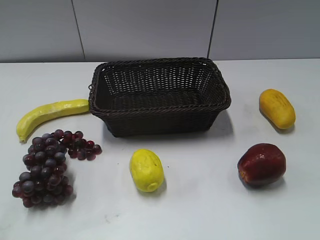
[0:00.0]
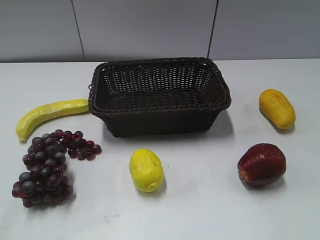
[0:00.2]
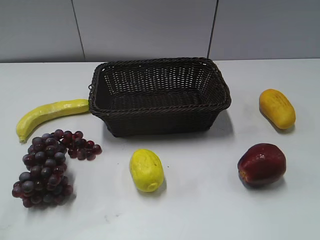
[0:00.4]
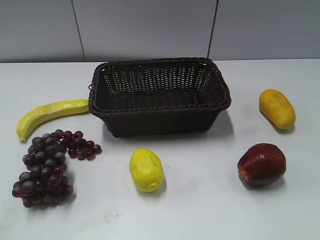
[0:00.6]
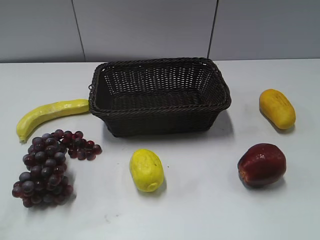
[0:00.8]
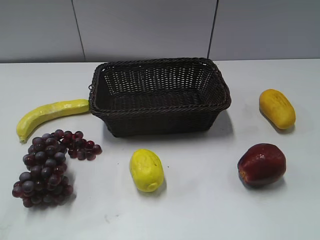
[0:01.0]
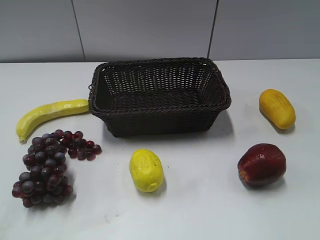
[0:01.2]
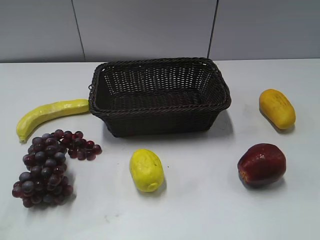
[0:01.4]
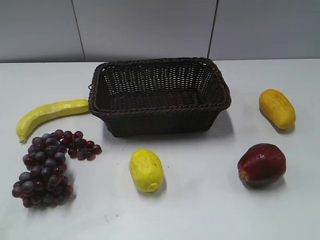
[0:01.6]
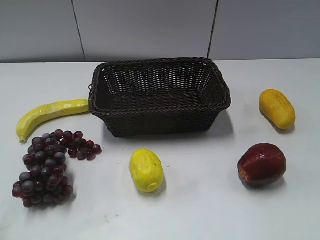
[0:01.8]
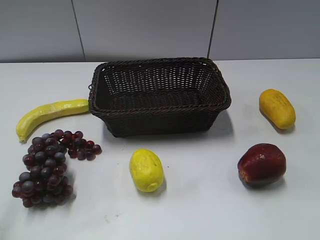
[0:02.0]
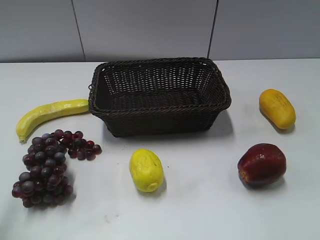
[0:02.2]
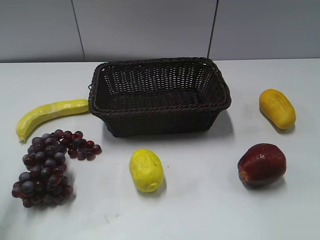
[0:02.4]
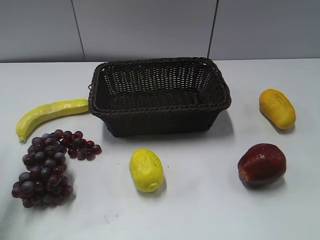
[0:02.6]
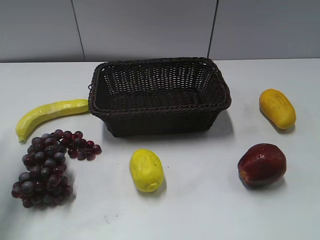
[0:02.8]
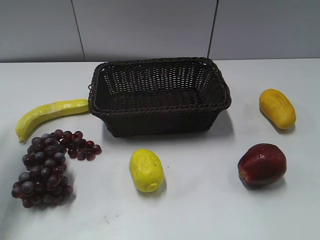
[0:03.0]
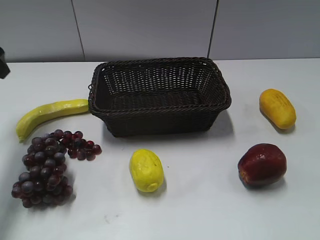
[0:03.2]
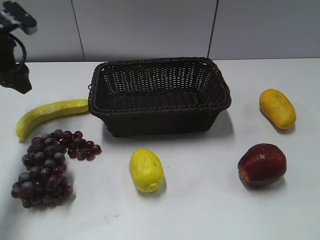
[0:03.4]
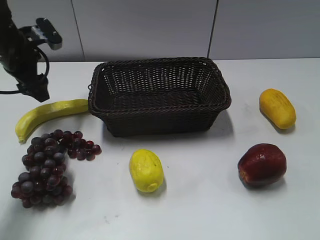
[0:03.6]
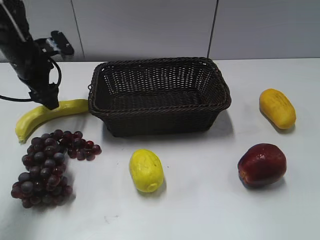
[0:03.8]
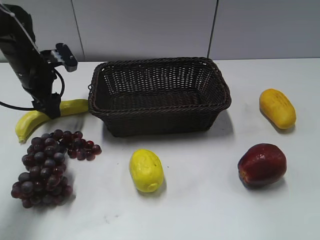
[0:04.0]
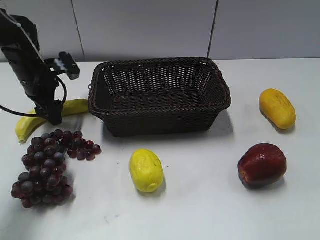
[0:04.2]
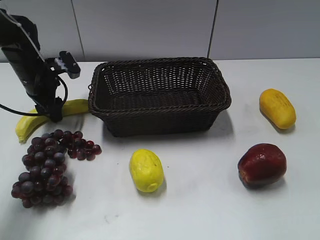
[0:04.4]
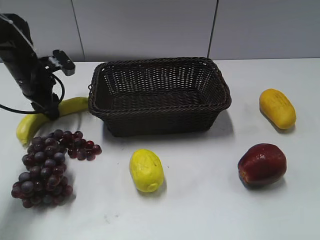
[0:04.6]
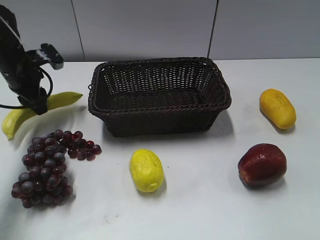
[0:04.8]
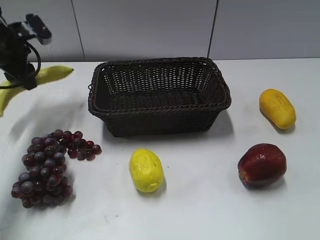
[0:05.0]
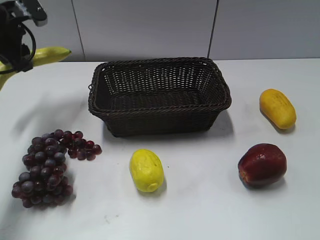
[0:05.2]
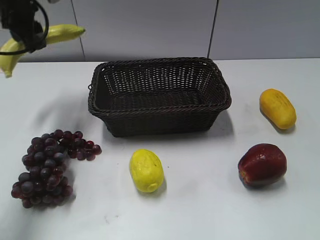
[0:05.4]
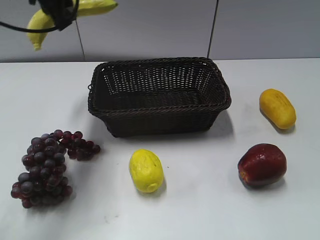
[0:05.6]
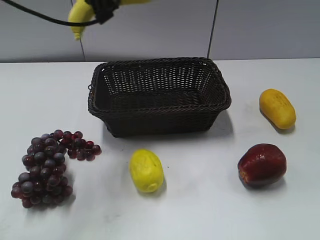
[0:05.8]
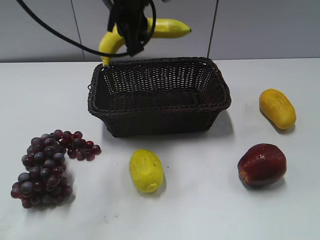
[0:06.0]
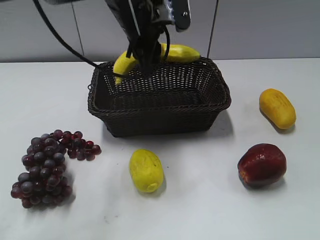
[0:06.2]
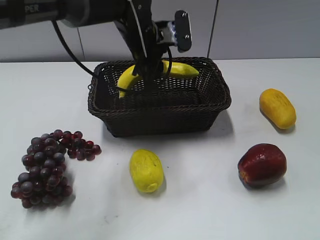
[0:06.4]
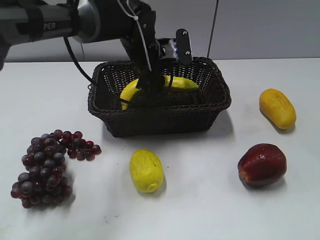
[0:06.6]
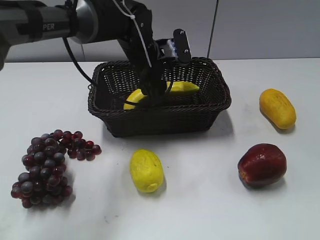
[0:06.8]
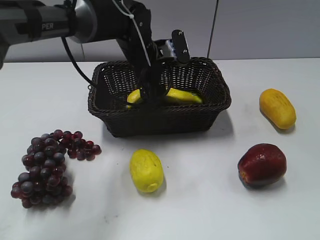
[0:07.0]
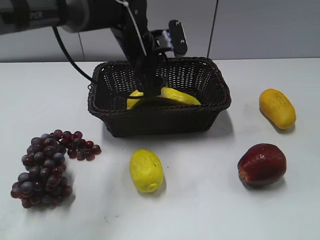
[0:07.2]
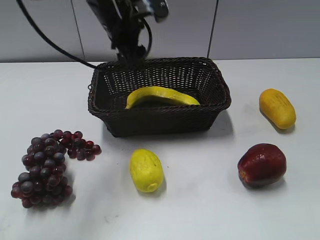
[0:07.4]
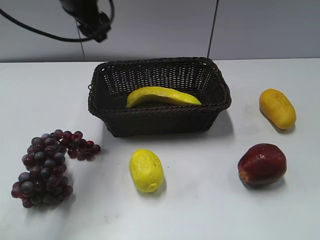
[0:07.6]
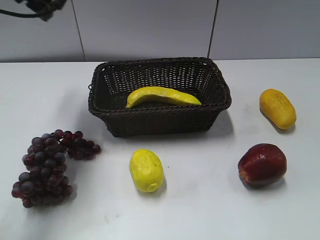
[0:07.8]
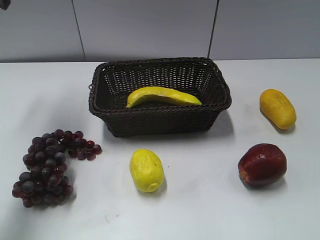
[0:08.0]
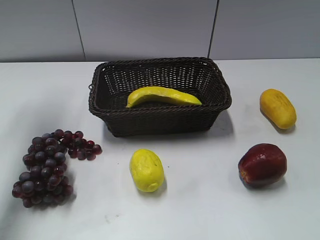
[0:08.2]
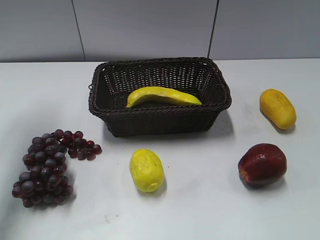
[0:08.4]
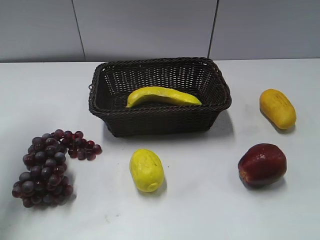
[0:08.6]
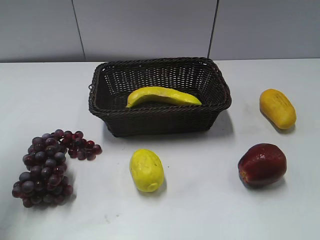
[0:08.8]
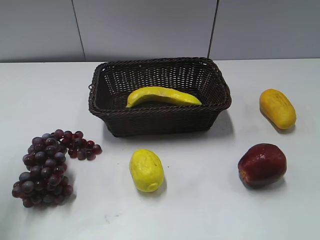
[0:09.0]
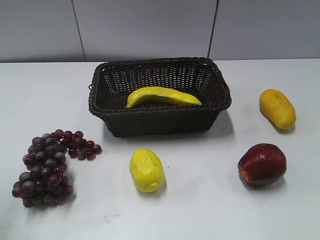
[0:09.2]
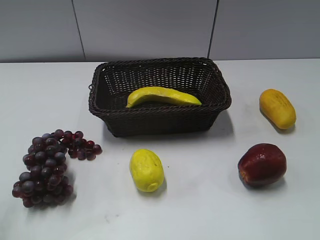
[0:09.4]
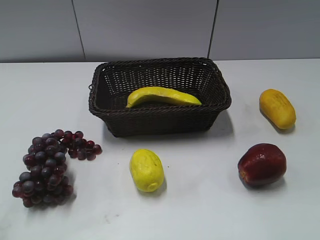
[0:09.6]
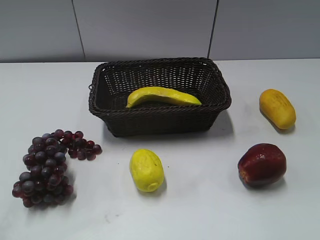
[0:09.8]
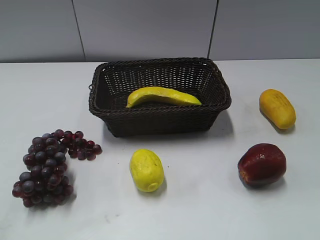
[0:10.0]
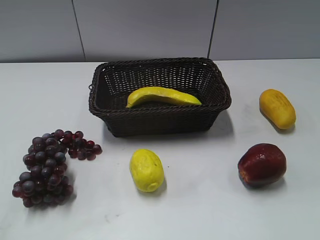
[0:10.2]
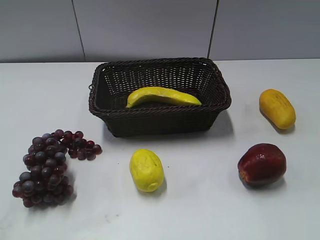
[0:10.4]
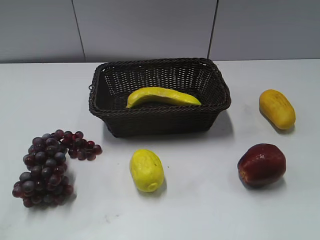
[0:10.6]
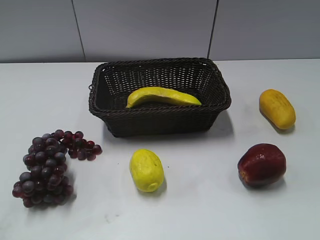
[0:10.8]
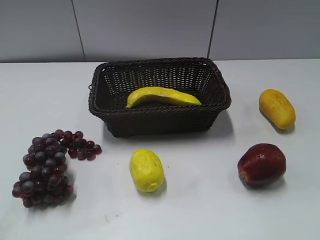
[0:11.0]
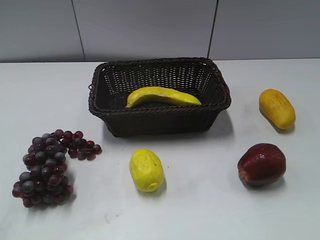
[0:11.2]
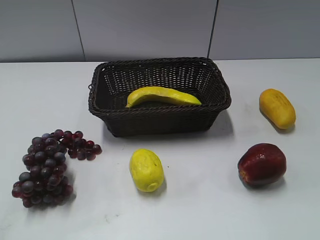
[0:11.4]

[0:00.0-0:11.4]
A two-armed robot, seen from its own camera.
Step, 0:03.2 to 0:04.6: Grasp the banana with left gripper.
Step, 0:04.8 to 0:07.0: Place the banana in the basket with left gripper.
0:01.4 to 0:02.8: The left gripper heads forward, covering about 25 cm.
0:02.8 to 0:04.2: The left gripper is displaced downward and forward by about 25 cm.
0:04.2 to 0:05.6: The left gripper moves upward and to the right, approximately 20 cm, and closes.
0:05.6 to 0:07.2: The left gripper shifts roughly 20 cm downward and to the right, and opens up.
0:07.2 to 0:08.6: The left gripper travels to the left and upward by some 35 cm.
0:08.6 to 0:10.0: The left gripper is displaced backward by approximately 30 cm.

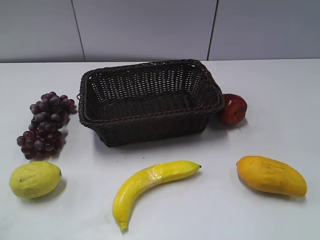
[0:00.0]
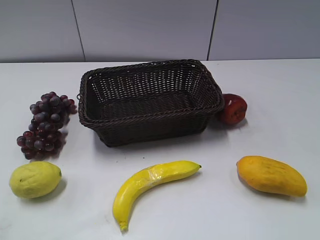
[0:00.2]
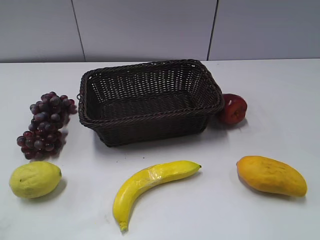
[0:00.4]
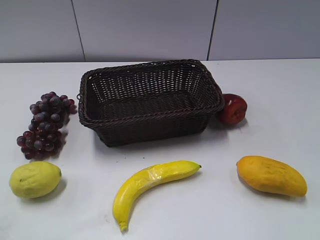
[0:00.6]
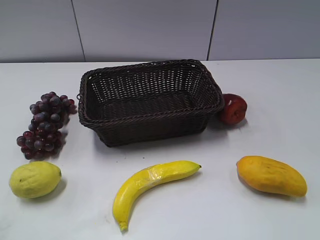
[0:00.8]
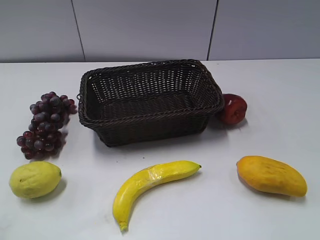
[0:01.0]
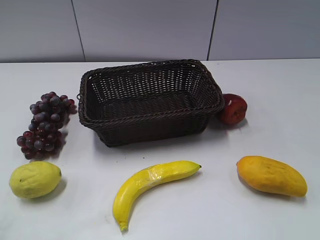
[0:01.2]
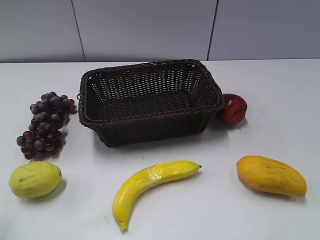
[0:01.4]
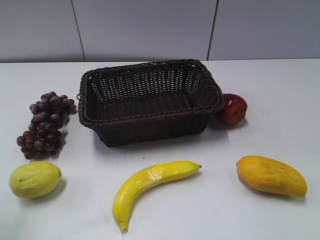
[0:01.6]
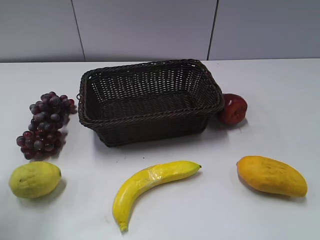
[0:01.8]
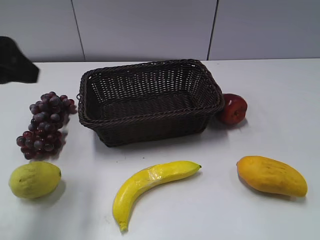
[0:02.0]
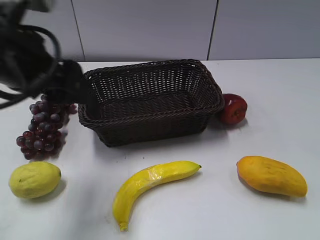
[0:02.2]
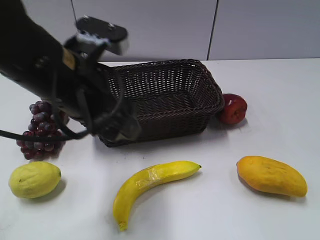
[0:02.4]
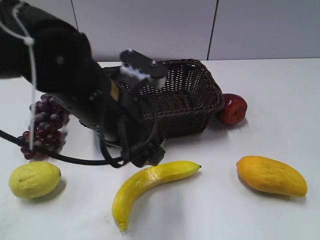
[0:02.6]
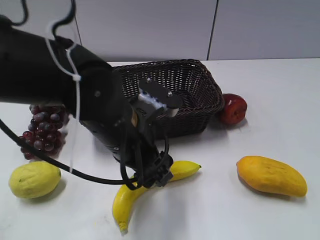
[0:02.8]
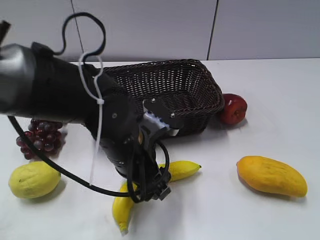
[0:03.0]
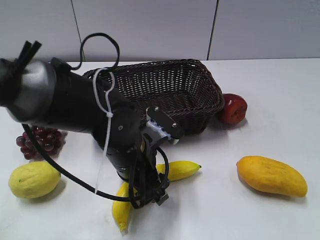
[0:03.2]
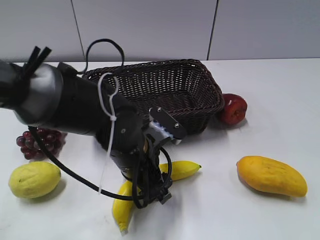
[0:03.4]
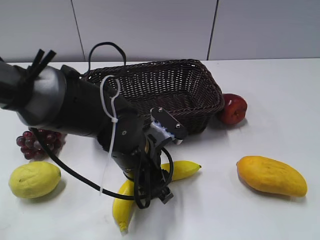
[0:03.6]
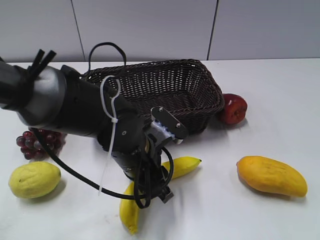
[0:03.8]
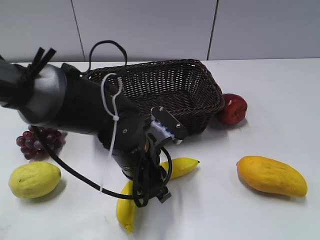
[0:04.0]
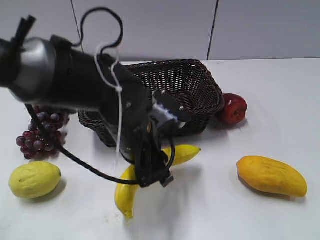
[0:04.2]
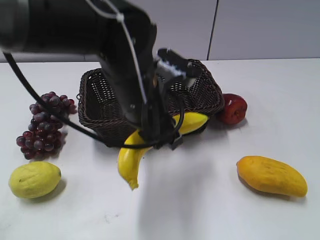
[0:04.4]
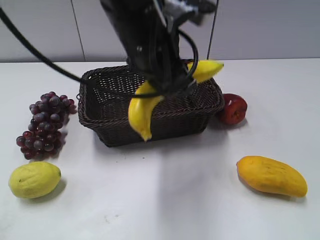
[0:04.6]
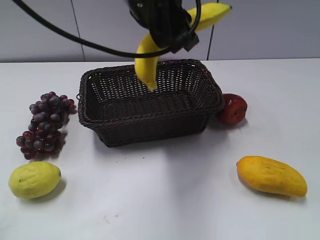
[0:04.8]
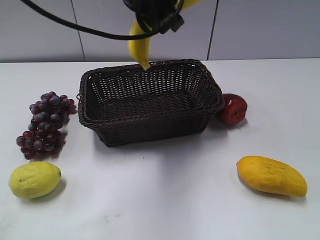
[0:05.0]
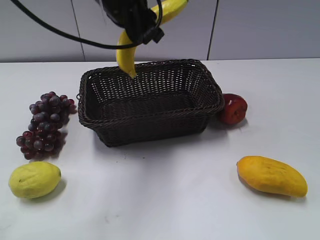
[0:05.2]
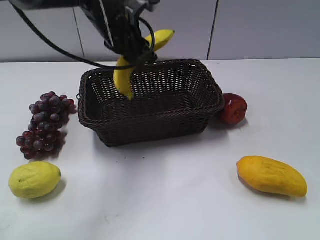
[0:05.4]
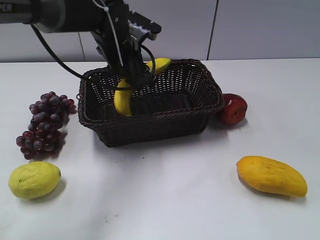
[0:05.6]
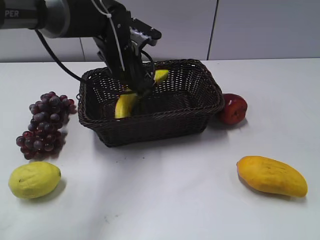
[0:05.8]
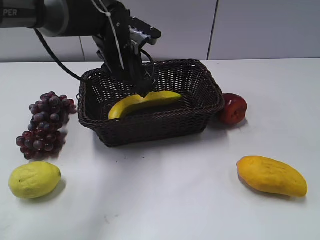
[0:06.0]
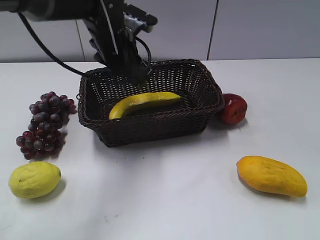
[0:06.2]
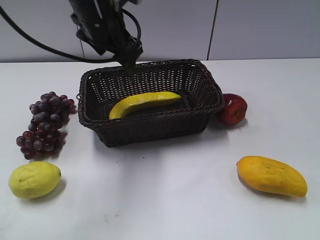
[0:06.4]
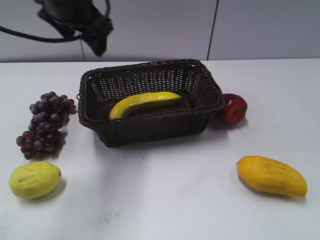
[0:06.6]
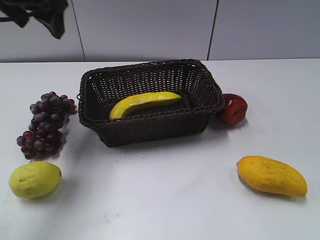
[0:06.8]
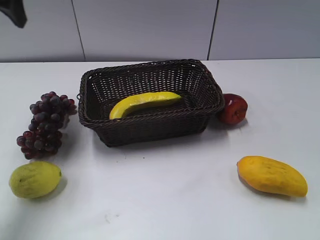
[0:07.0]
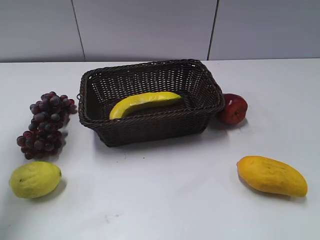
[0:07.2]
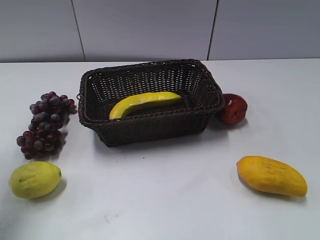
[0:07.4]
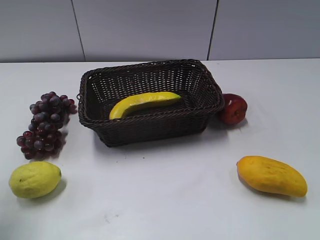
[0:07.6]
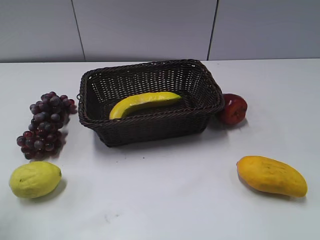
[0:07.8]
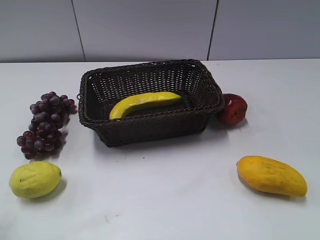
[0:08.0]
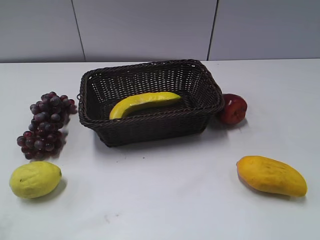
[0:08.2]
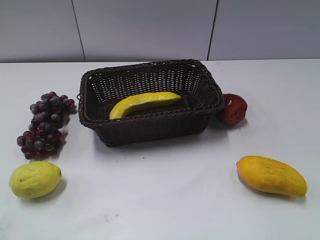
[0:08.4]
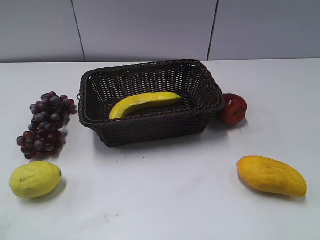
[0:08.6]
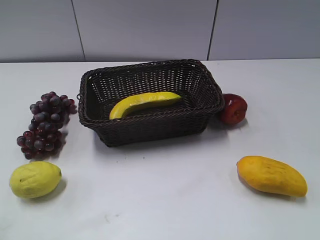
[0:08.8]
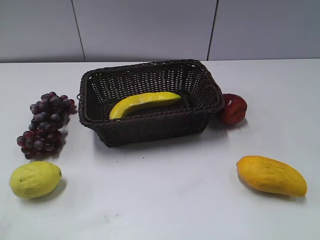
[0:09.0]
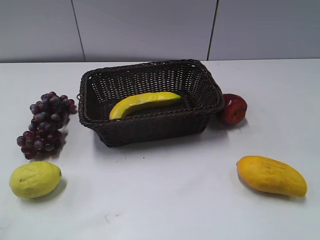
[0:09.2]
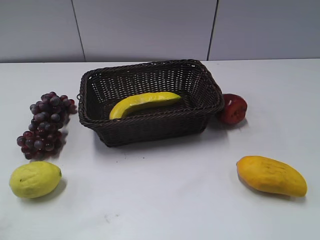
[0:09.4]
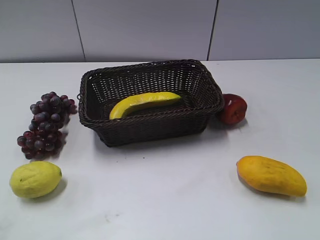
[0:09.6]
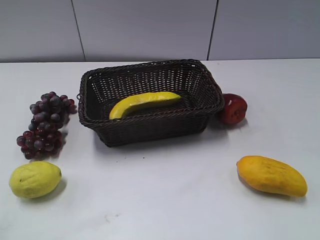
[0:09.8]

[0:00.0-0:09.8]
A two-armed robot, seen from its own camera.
Step, 0:02.0 to 0:04.0: Grasp the banana with left gripper.
Step, 0:04.2 to 0:05.8: Place the banana in the basket with left gripper.
0:01.4 to 0:02.8: The left gripper is displaced to the right, forward and downward by about 35 cm.
0:02.8 to 0:04.2: The left gripper closes its fingers.
0:04.2 to 0:05.6: The left gripper moves forward, some 15 cm, and reaches approximately 20 cm upward, then returns.
0:05.6 to 0:07.0: The left gripper shifts approximately 25 cm to the left and upward, and opens.
0:07.0 to 0:08.4: The left gripper moves backward, approximately 30 cm.

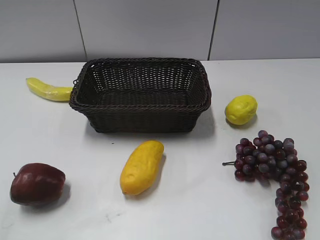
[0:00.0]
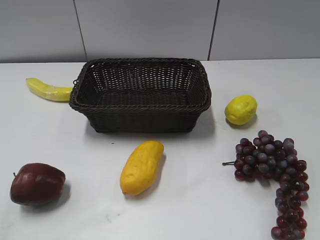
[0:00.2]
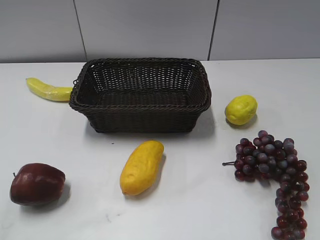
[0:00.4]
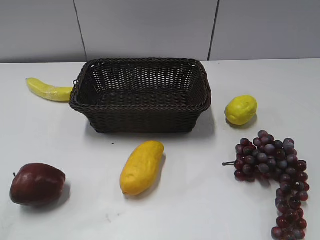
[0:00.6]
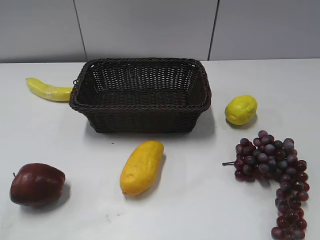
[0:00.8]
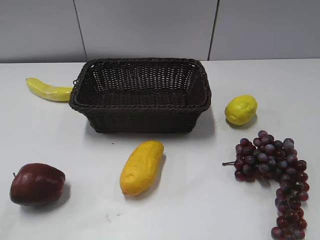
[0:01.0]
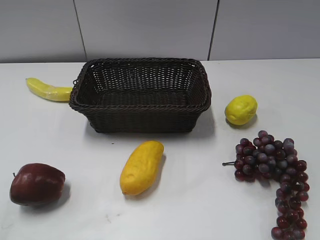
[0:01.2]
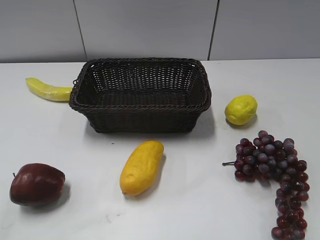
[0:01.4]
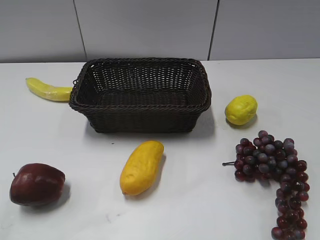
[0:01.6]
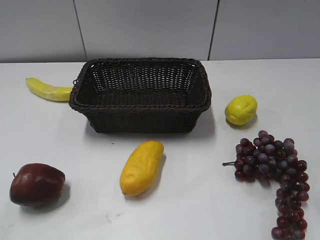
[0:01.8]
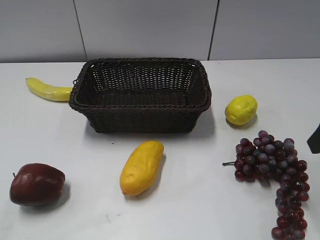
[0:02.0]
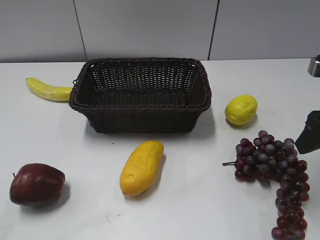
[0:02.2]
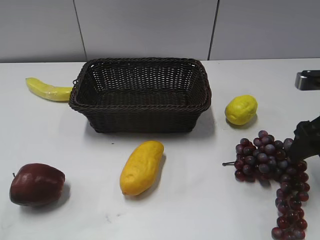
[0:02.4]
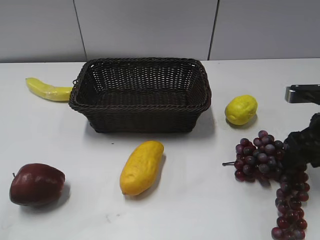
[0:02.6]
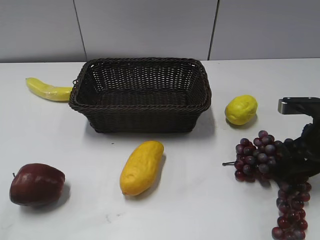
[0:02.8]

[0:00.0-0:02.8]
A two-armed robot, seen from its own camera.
0:01.4 to 0:02.8: The right gripper heads downward and forward, covering some 20 cm.
